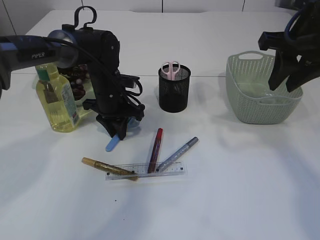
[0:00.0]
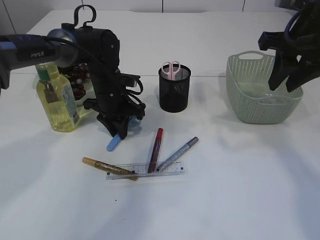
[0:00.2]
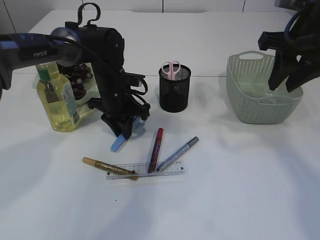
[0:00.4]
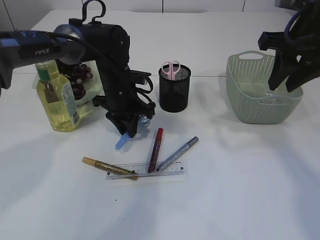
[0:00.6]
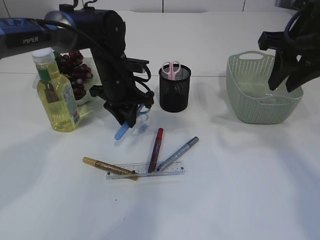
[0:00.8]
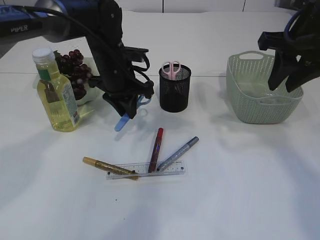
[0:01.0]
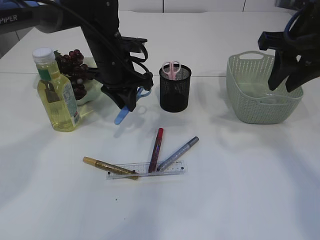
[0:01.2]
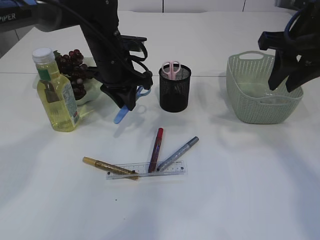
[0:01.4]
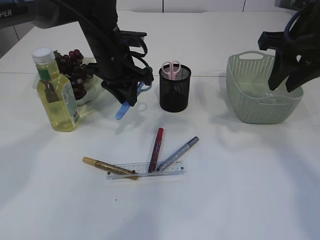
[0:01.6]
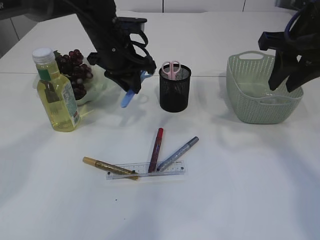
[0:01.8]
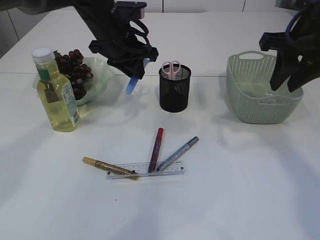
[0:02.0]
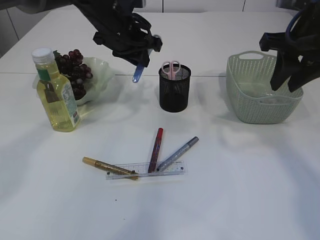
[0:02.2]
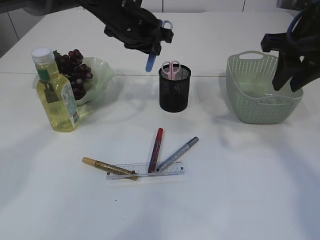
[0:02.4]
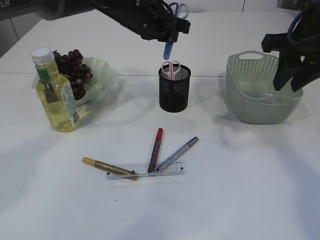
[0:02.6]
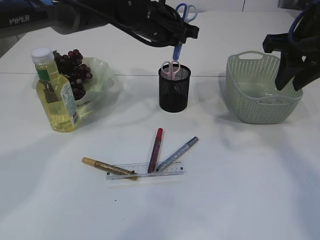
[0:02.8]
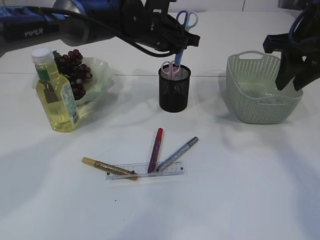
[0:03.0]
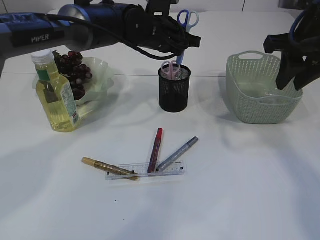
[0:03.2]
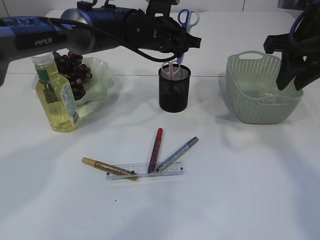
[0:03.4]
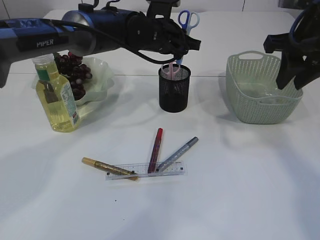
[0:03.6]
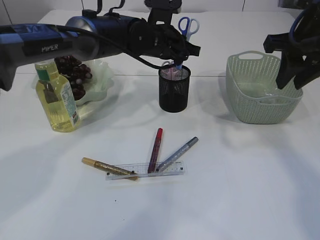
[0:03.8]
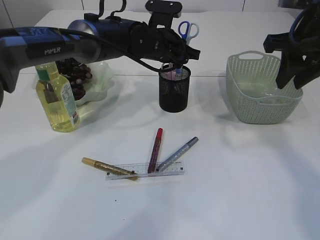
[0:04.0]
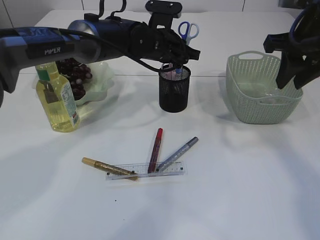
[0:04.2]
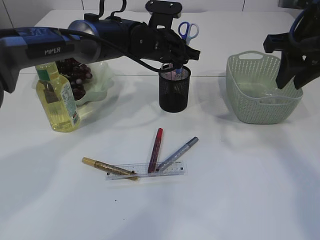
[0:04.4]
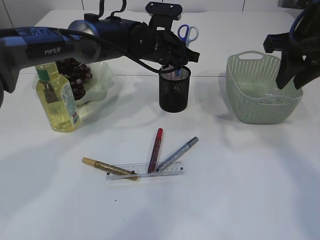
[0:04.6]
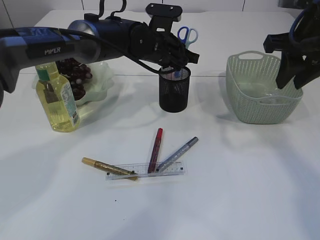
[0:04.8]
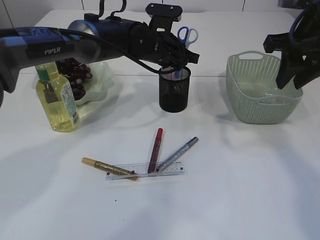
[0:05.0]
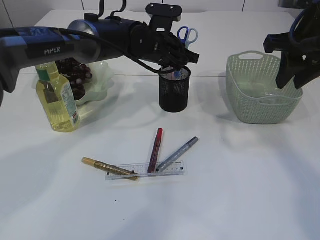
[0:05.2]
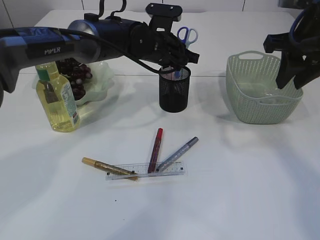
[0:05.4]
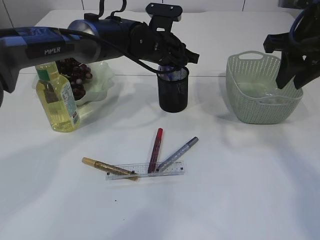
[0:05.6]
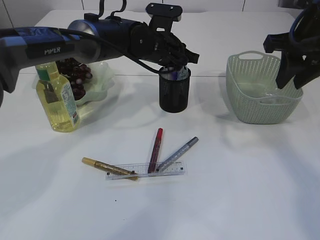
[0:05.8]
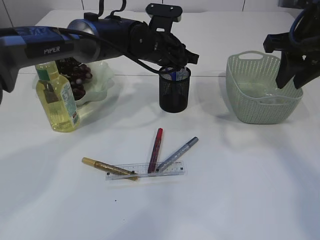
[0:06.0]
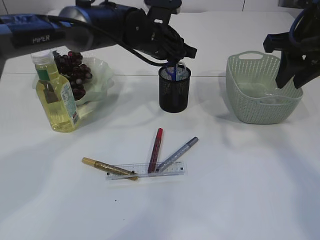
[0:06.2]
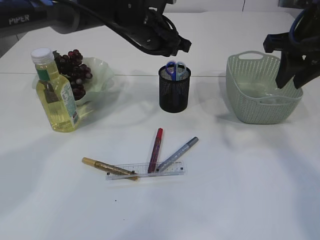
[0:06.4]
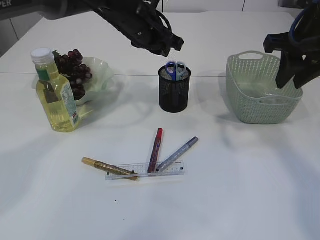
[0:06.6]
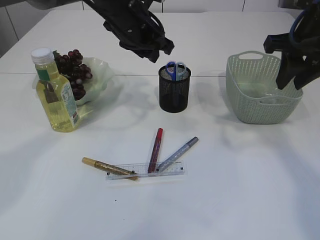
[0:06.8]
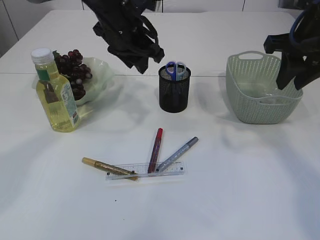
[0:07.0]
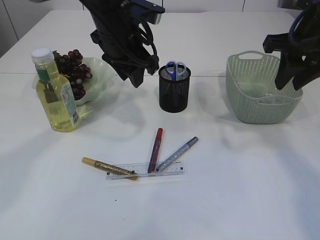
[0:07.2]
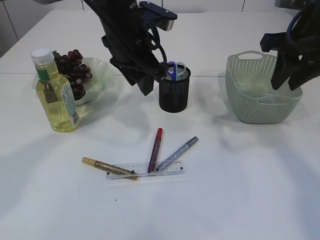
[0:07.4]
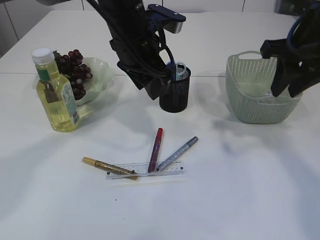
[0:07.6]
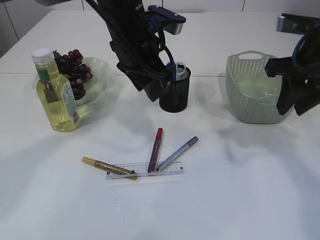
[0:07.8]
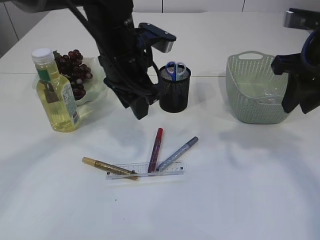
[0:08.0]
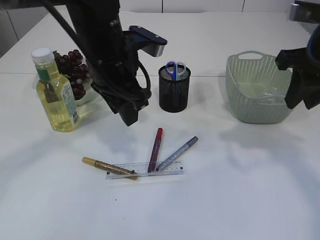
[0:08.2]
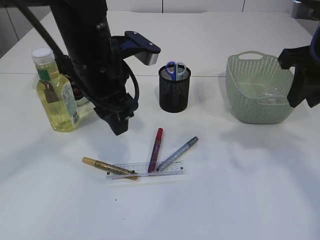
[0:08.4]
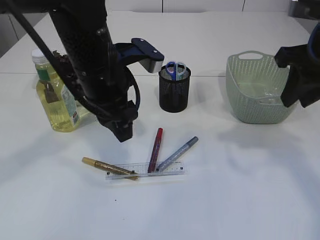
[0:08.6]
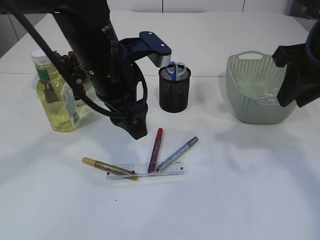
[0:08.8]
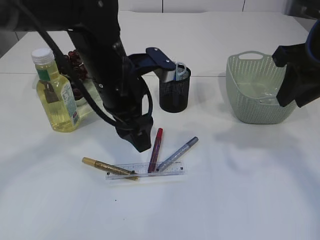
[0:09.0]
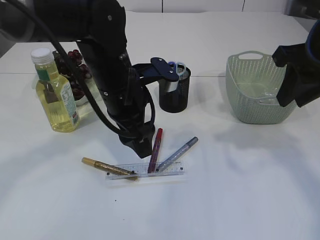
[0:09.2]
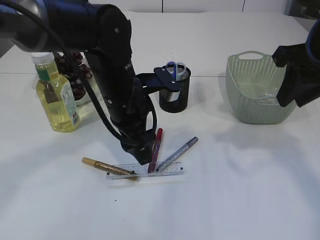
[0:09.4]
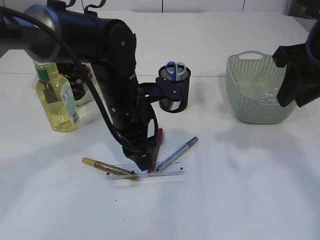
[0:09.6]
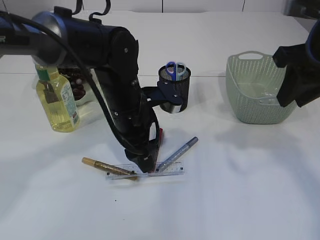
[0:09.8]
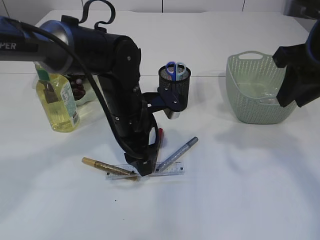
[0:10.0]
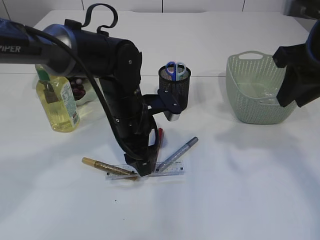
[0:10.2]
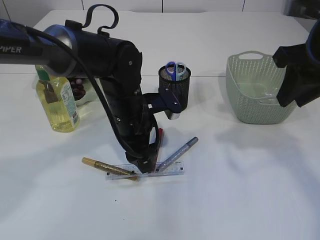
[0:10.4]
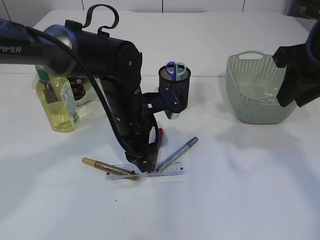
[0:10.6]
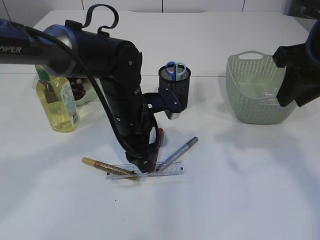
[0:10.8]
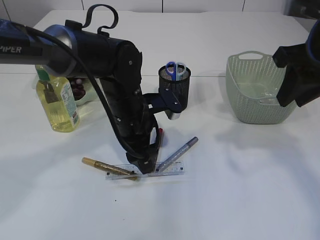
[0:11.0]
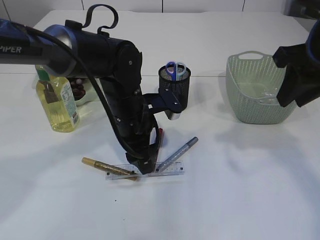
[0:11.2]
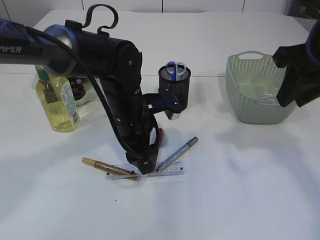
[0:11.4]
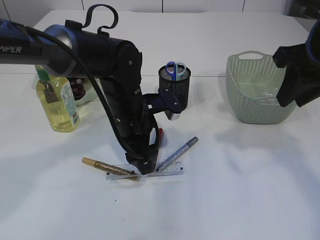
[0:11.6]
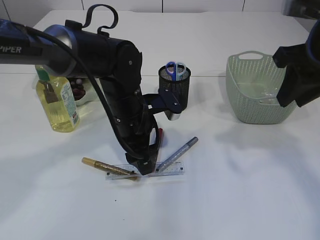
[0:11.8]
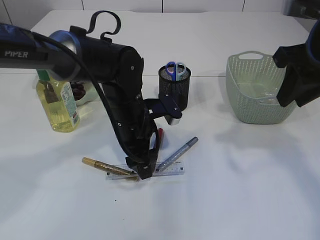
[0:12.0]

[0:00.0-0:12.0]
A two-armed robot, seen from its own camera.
Step, 0:01.4 to 0:06.8: Place the blue scissors into the pen holder.
0:00.0 to 0:01.6: The left gripper is displaced upward by some 10 cm.
0:01.6 to 0:03.0: The left gripper is displaced to the right by about 5 cm.
0:03.0 to 0:04.4: The grippers make only small movements.
0:04.4 to 0:06.0: Both grippers stay put.
0:06.0 to 0:07.6: The left gripper goes approximately 10 cm backward and upward.
0:07.6 to 0:09.0: The left gripper travels backward by approximately 5 cm, and opens up.
0:09.0 to 0:10.4: The left gripper moves downward, roughly 10 cm.
0:10.4 to 0:12.0: The two grippers keep their place.

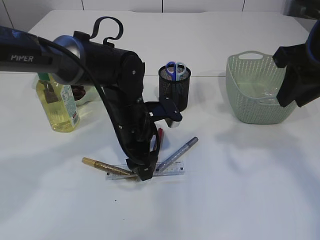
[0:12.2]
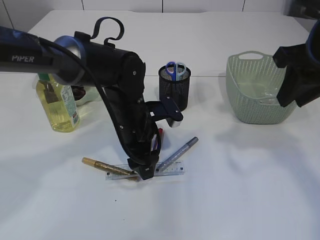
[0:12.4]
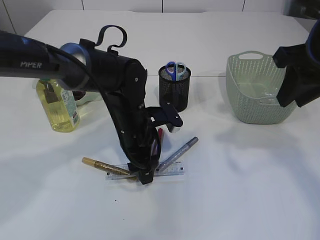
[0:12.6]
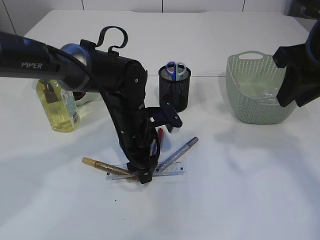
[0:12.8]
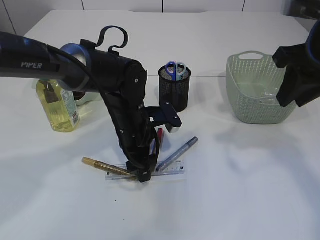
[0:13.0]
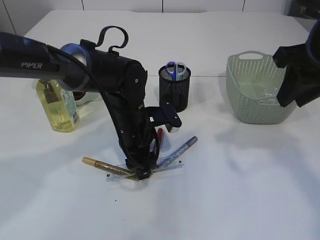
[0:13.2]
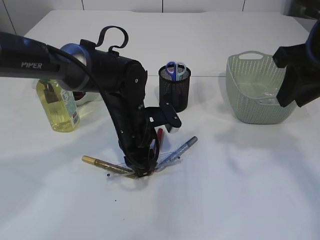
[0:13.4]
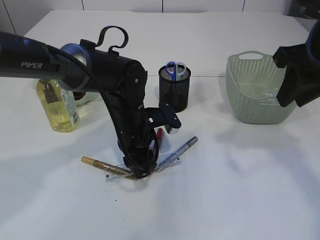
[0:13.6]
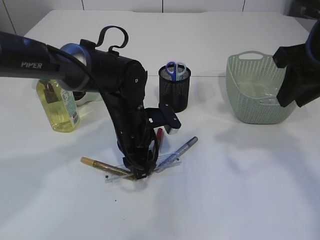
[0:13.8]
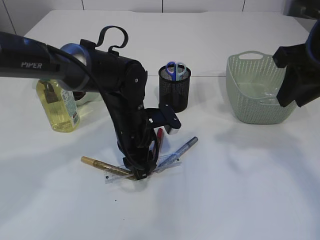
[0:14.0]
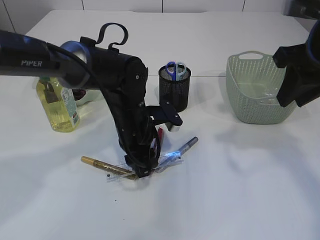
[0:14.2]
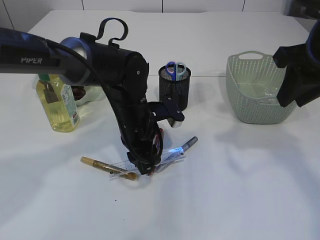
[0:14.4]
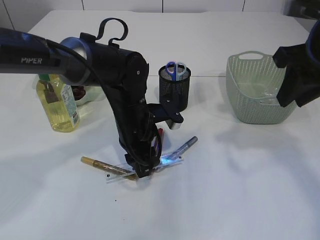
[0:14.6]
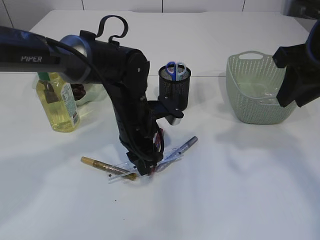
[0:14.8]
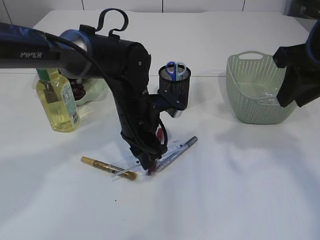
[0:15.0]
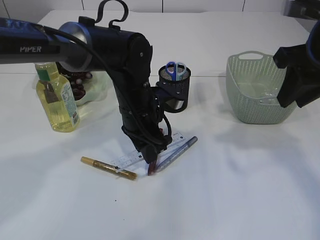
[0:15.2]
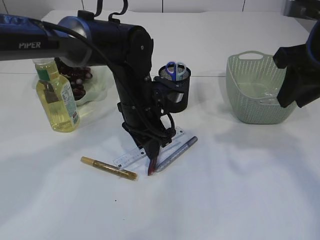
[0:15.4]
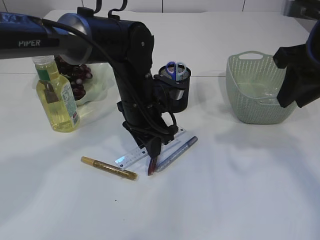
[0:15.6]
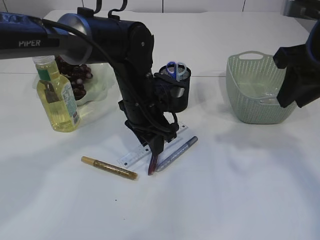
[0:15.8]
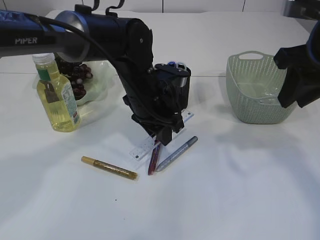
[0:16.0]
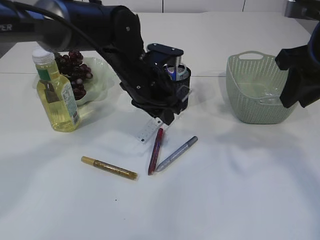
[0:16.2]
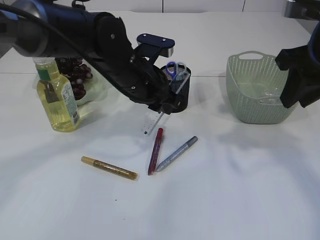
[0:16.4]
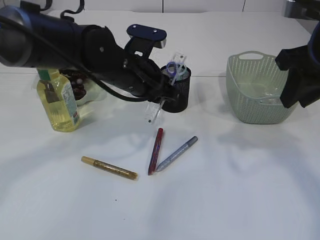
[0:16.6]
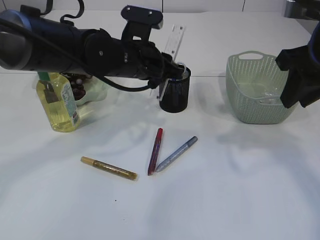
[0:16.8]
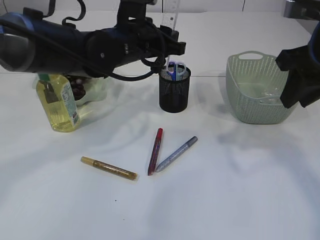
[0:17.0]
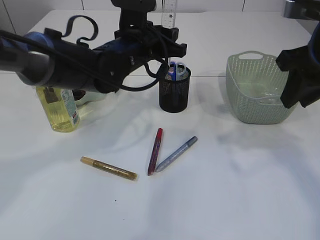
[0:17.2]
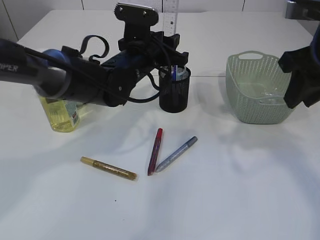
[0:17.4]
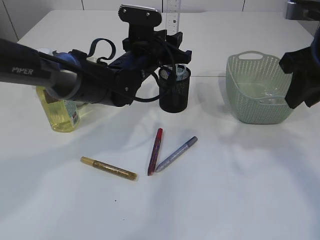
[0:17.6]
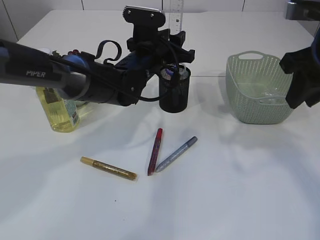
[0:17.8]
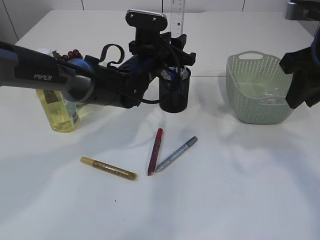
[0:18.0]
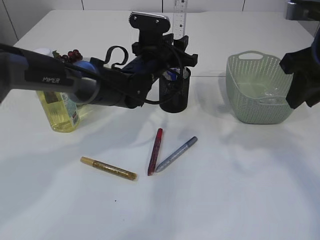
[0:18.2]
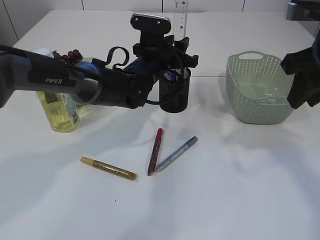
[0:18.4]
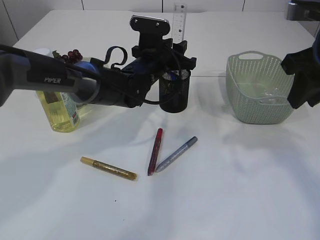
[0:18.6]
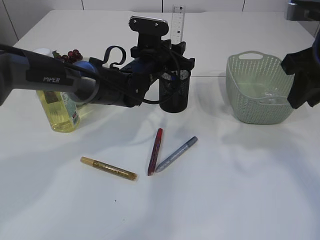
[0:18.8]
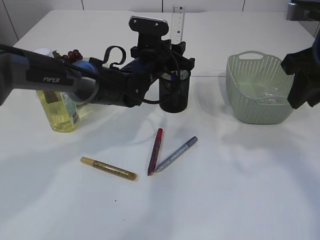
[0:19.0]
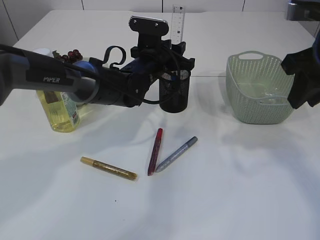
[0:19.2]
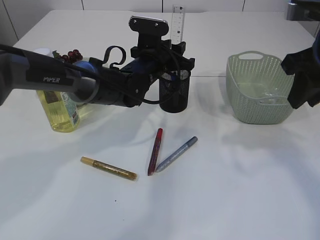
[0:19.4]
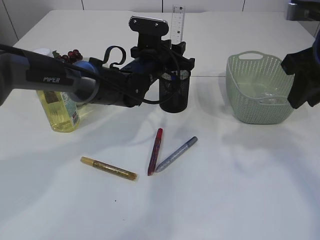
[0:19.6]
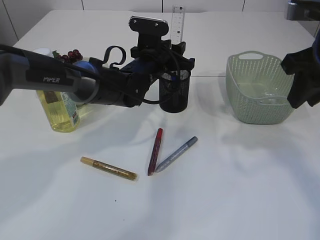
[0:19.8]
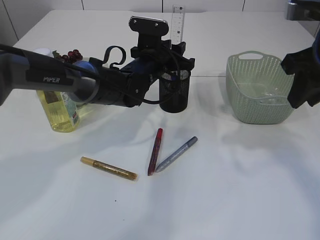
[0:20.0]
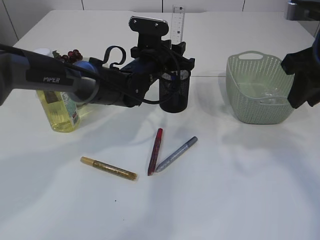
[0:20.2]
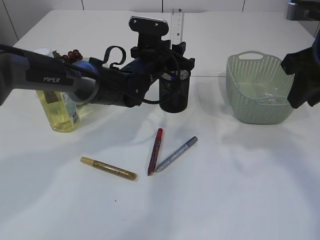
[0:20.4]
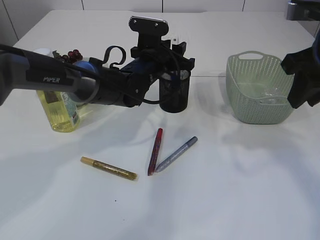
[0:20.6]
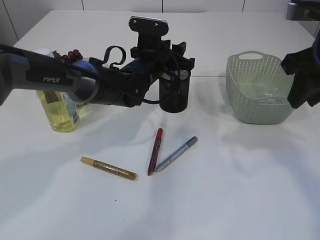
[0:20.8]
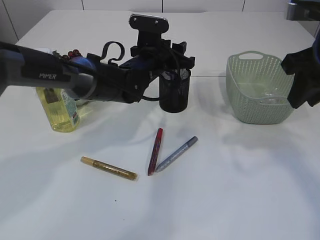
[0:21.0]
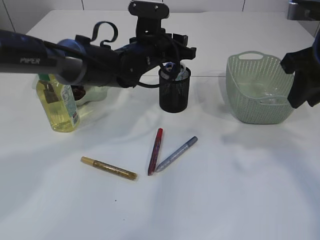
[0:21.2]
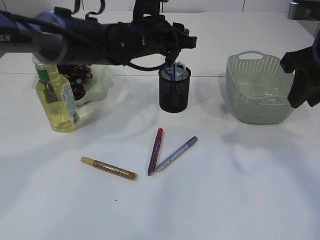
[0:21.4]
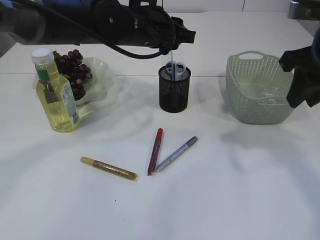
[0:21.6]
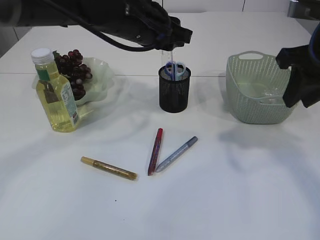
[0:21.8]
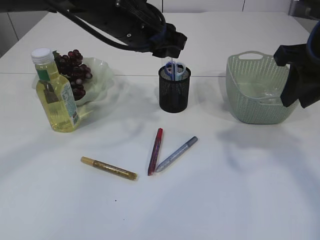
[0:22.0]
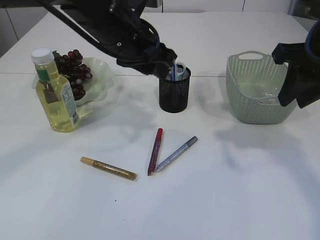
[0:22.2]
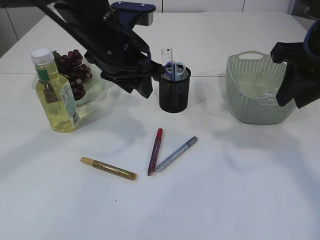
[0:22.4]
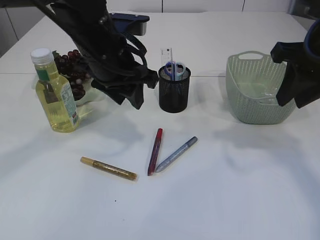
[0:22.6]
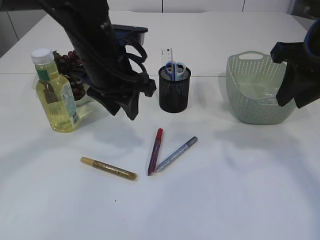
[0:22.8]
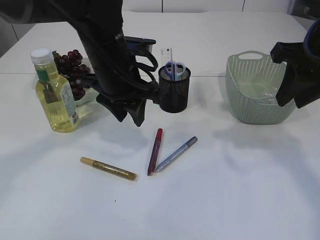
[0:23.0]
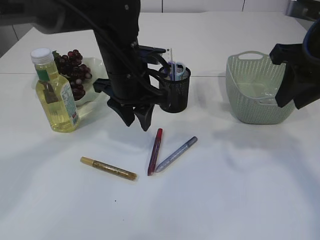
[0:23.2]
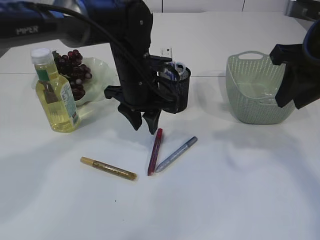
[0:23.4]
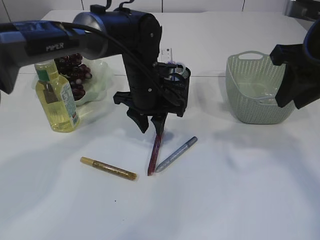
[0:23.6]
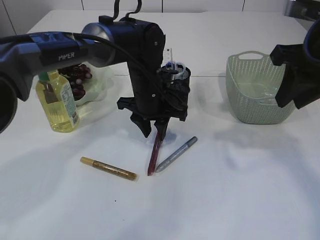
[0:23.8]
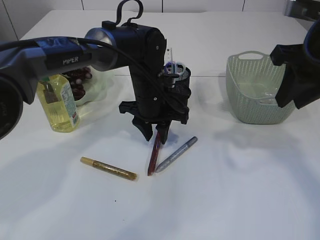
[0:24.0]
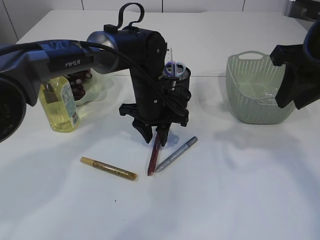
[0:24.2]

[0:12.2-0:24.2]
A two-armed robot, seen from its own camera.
Step, 0:12.2 to 0:16.2: pick up the ruler.
Step, 0:16.4 to 0:21.6: Place the ruler into the pen holder.
0:12.2 to 0:13.8: The left gripper closes.
0:13.8 to 0:15.2: There are only small adjustments of the grippers.
0:15.2 to 0:16.6: The left gripper goes about 5 cm upward.
0:16.6 to 0:18.2: The left gripper is displaced forward by roughly 5 cm.
0:18.2 to 0:19.8: Both grippers stay about where they are.
0:19.8 to 0:21.2: There are only small adjustments of the grippers.
0:21.2 to 0:22.6: The left gripper shifts about 15 cm backward, upward and to the left.
0:22.6 to 0:24.2: The left gripper heads downward, forward and to the right, covering some 15 cm.
